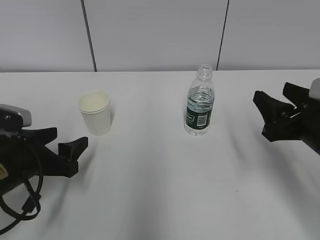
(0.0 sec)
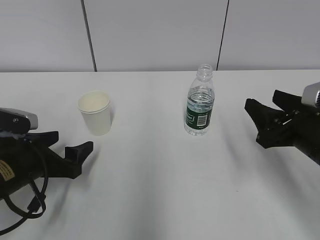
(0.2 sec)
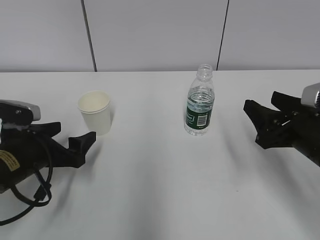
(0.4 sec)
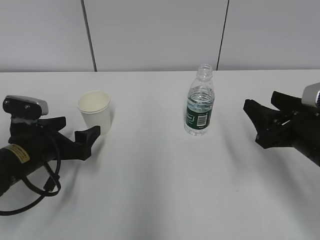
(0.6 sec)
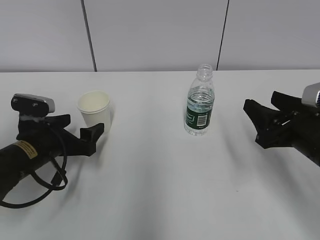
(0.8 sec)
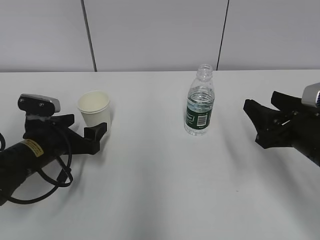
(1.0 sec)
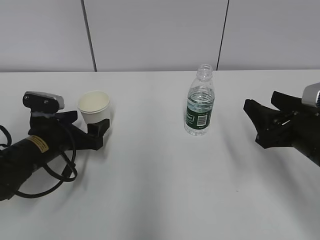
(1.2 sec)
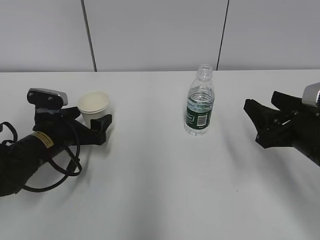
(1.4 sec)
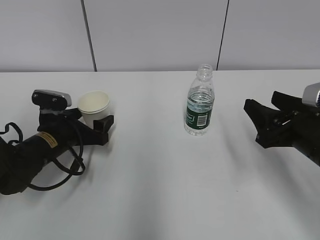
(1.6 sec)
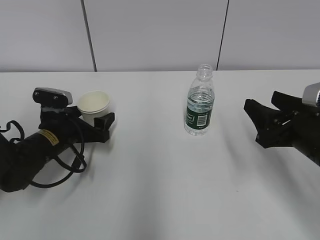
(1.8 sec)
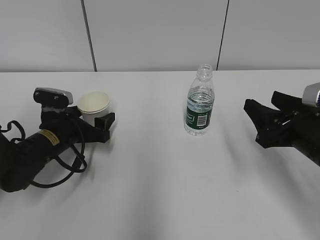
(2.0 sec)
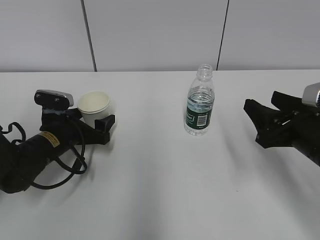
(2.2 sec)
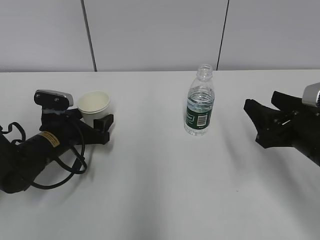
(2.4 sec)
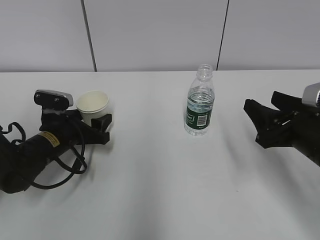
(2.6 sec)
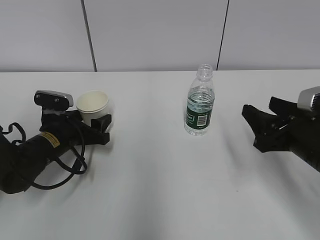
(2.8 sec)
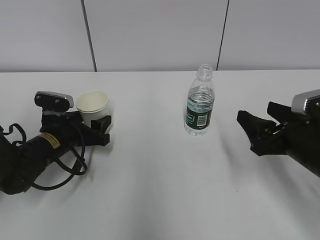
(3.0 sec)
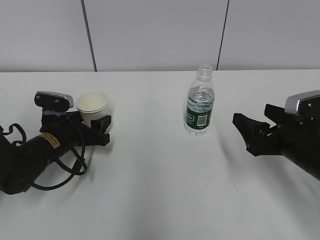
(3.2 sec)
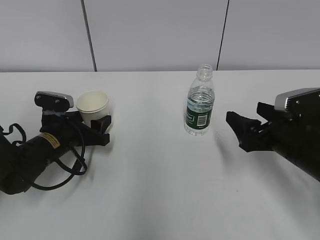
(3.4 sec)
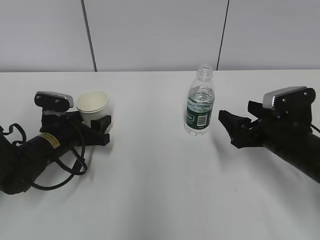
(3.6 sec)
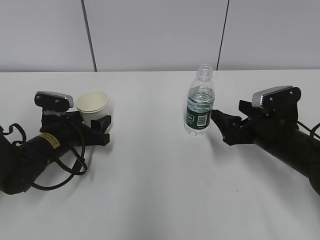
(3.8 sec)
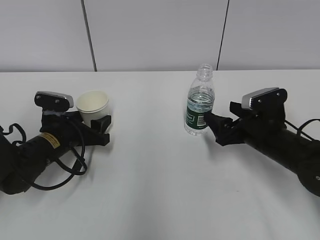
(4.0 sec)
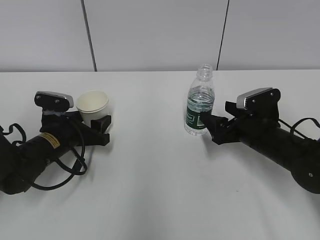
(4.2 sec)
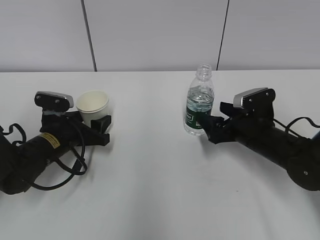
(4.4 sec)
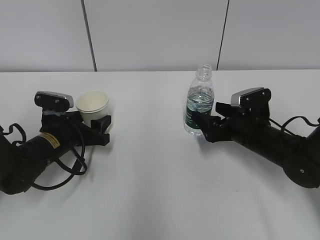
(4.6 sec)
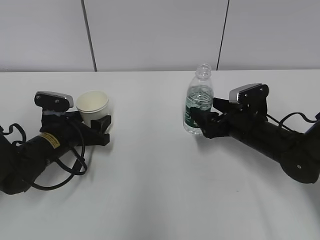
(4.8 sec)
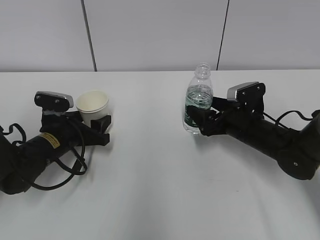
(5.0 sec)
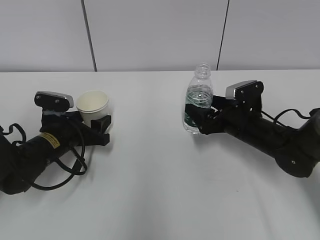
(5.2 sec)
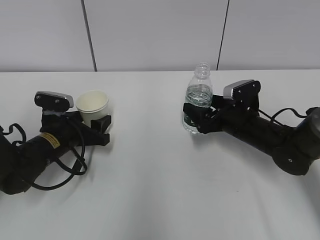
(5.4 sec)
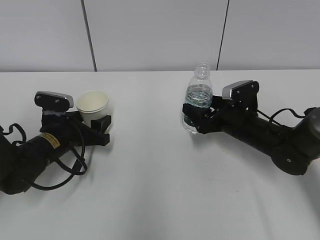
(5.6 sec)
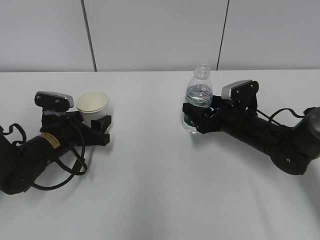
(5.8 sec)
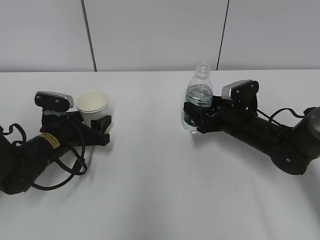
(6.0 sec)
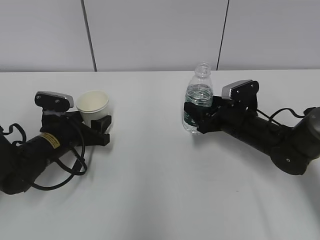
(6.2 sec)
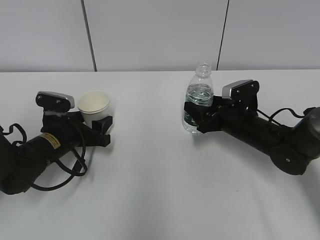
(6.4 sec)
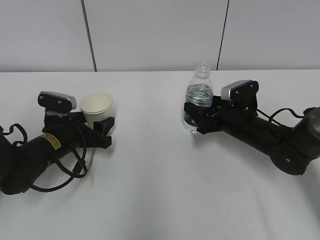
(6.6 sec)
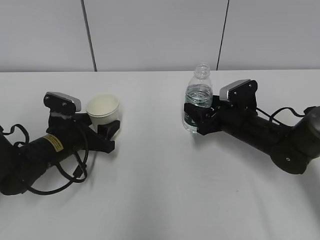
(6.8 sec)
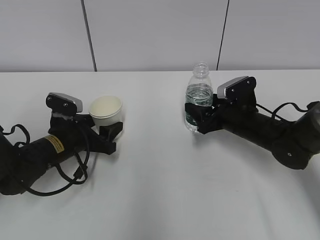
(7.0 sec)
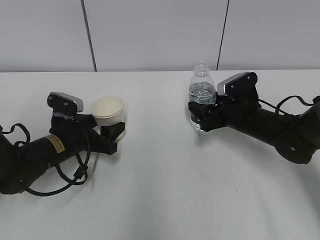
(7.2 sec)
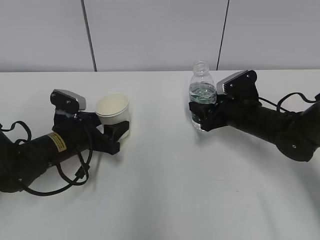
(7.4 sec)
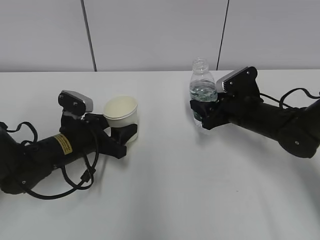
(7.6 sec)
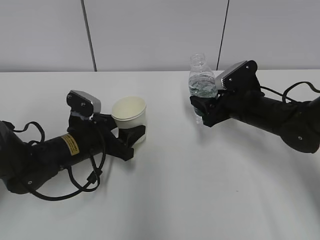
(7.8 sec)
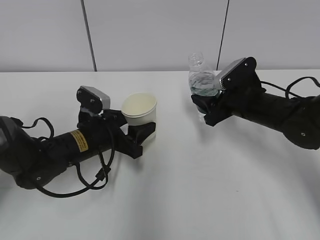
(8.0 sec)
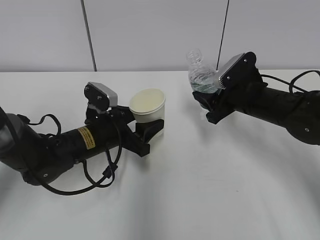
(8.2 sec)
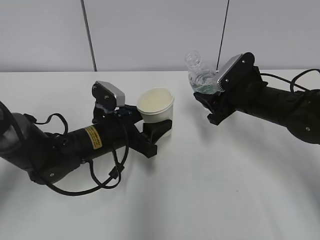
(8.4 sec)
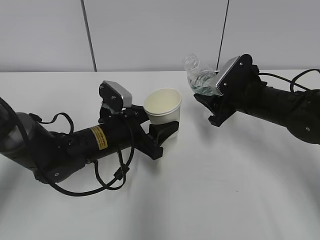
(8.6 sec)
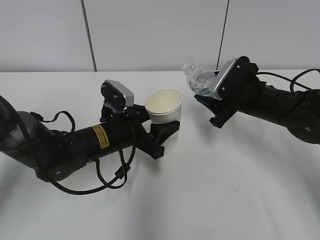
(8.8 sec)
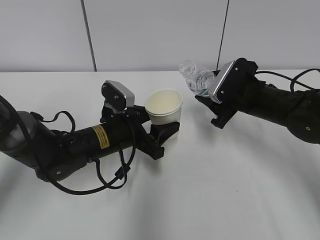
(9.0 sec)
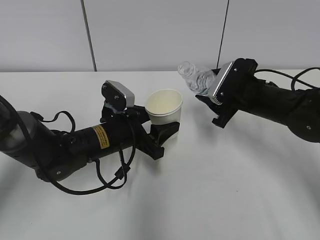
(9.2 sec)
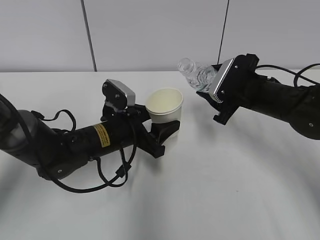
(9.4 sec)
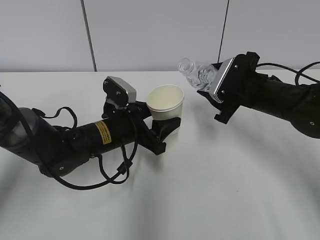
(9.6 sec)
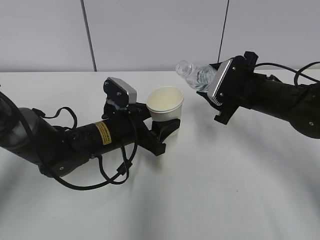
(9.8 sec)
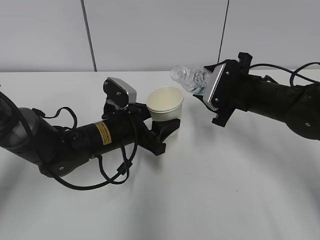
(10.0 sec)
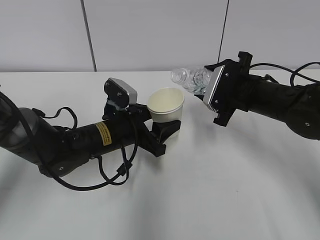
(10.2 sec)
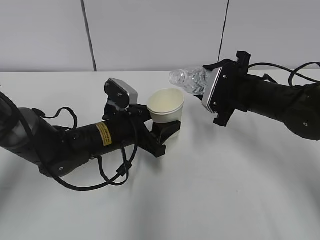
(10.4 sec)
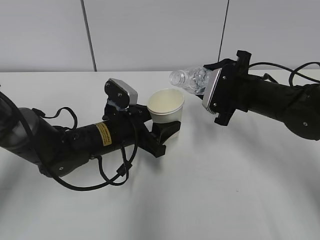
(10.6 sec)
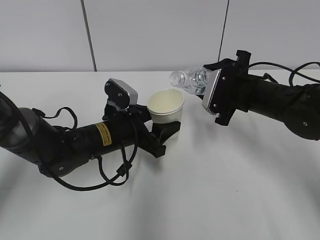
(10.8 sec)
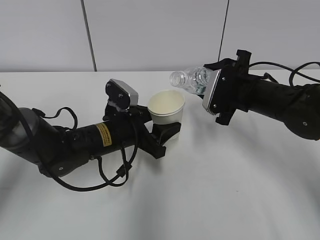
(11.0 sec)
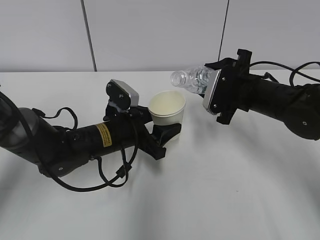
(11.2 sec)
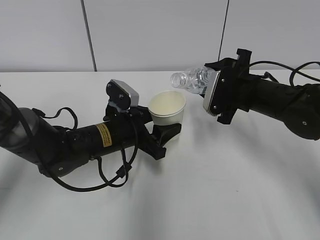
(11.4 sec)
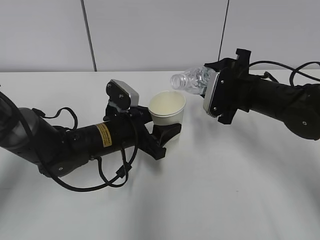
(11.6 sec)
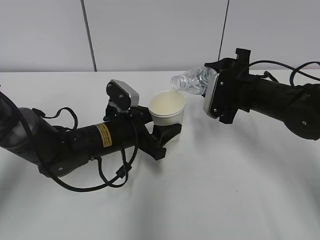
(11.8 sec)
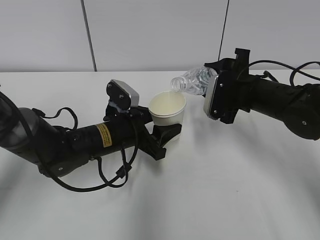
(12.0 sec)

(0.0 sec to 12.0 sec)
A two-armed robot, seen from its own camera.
Step, 0.0 sec - 3.8 sec: Grab the paper cup with the left hand.
Step, 4.0 sec - 4.2 sec: Grab the water bottle with the right hand.
Step, 4.4 sec - 9.2 sec: Lift the paper cup with the left hand.
0.0 sec - 1.6 sec: The left gripper travels forward by roughly 10 cm, and opens up.
1.6 sec - 3.0 sec: The left gripper closes up; the right gripper opens.
3.0 sec - 4.4 sec: The right gripper goes about 10 cm forward and downward, and opens its fingers.
4.4 sec - 6.0 sec: The right gripper closes.
6.0 sec - 7.6 sec: The grippers make only small movements.
7.6 sec - 9.0 sec: The left gripper heads to the right, covering about 5 cm.
9.0 sec - 10.4 sec: The grippers stay close to where they were, moving slightly.
10.4 sec - 12.0 sec: The grippers make only small movements.

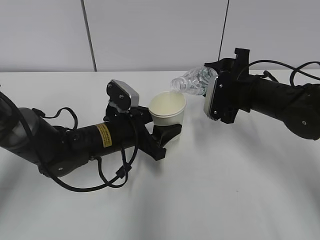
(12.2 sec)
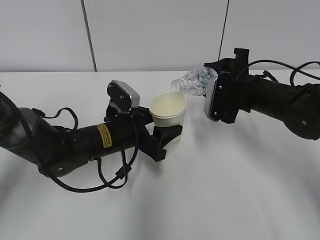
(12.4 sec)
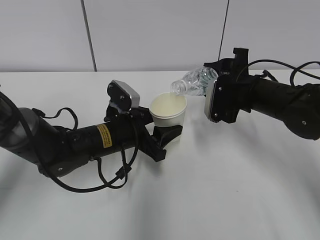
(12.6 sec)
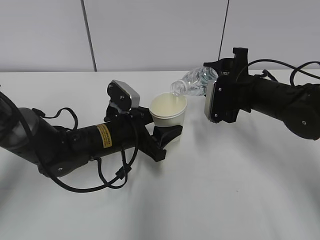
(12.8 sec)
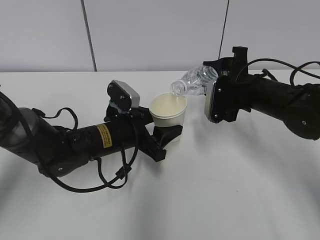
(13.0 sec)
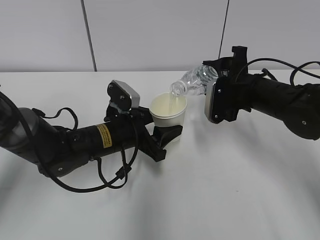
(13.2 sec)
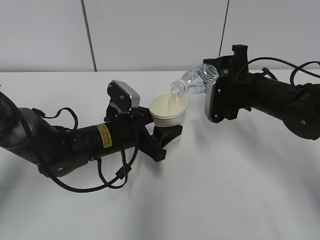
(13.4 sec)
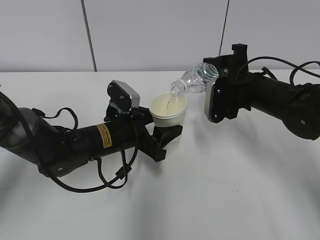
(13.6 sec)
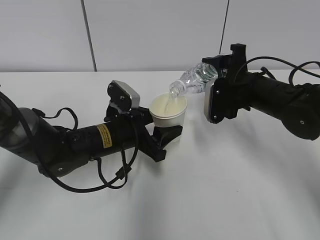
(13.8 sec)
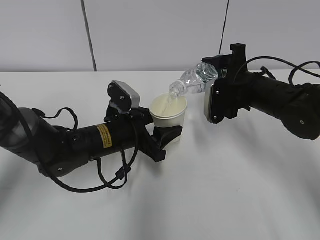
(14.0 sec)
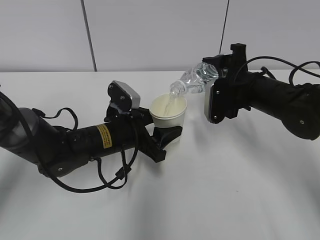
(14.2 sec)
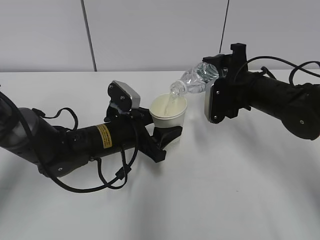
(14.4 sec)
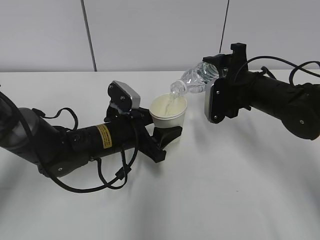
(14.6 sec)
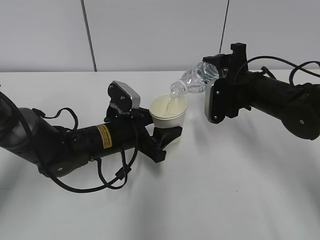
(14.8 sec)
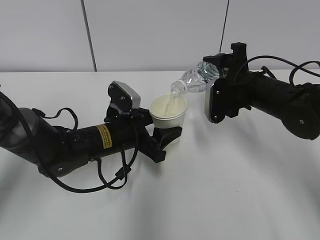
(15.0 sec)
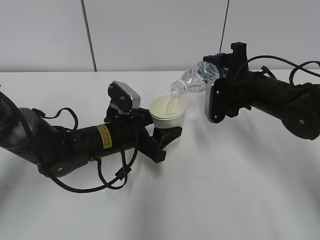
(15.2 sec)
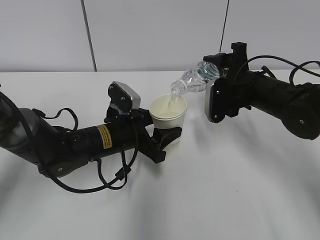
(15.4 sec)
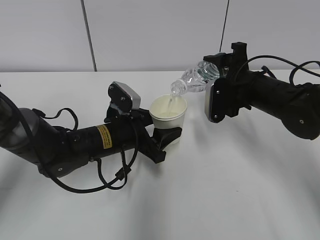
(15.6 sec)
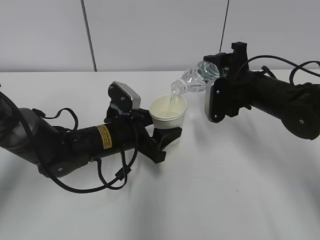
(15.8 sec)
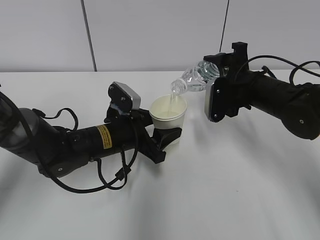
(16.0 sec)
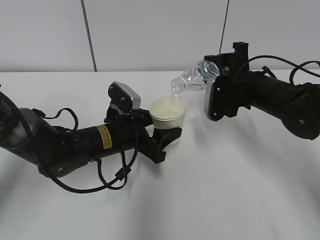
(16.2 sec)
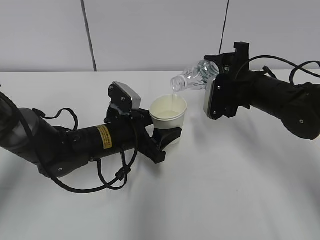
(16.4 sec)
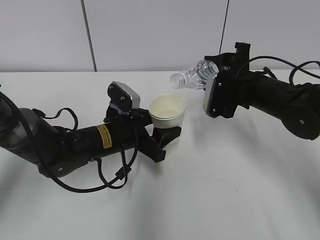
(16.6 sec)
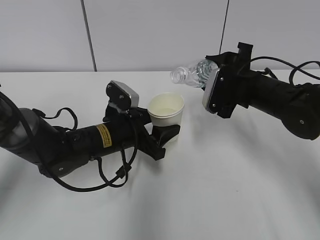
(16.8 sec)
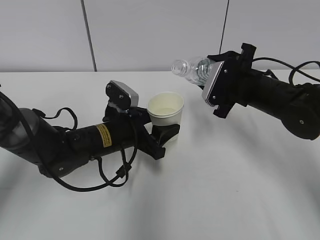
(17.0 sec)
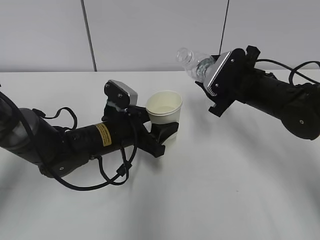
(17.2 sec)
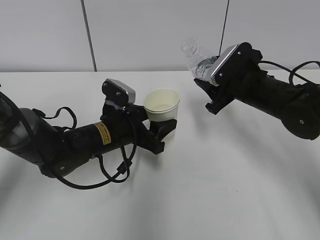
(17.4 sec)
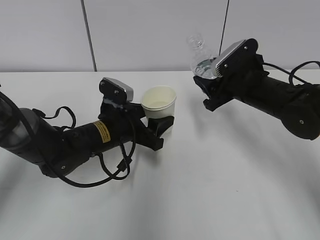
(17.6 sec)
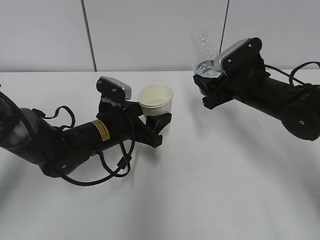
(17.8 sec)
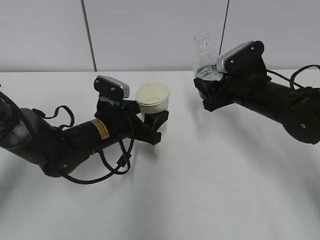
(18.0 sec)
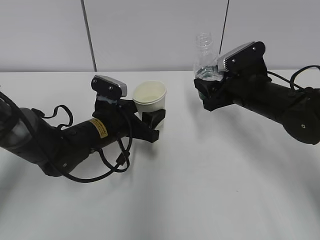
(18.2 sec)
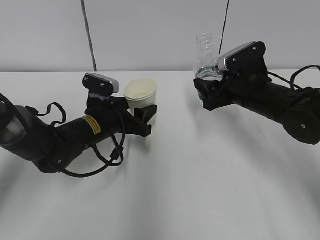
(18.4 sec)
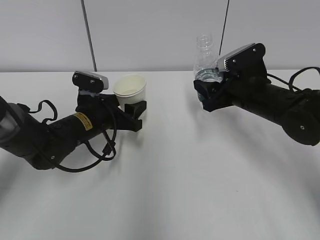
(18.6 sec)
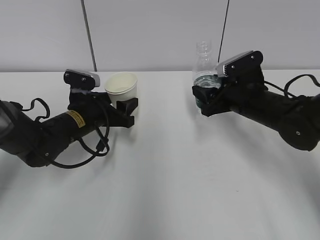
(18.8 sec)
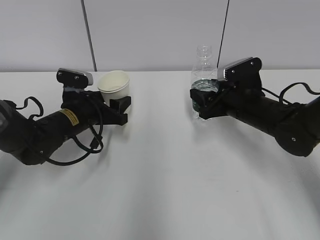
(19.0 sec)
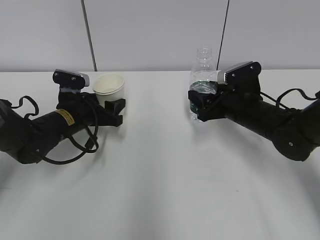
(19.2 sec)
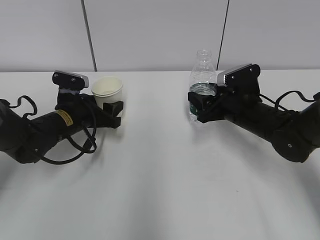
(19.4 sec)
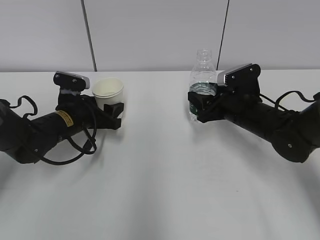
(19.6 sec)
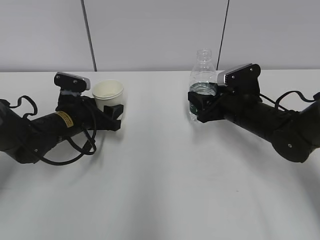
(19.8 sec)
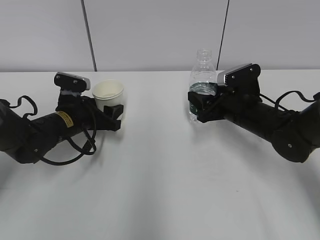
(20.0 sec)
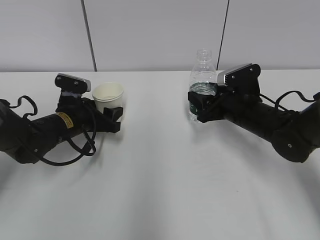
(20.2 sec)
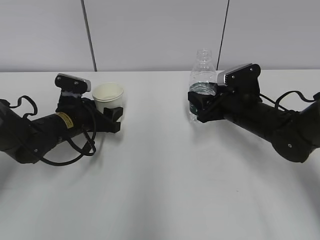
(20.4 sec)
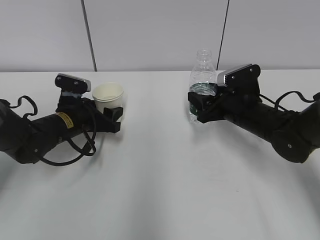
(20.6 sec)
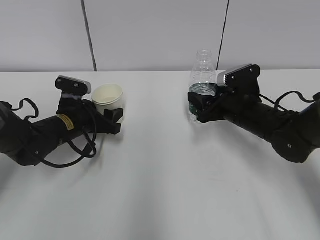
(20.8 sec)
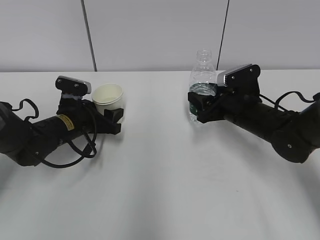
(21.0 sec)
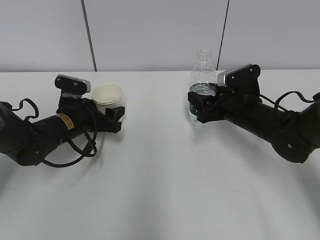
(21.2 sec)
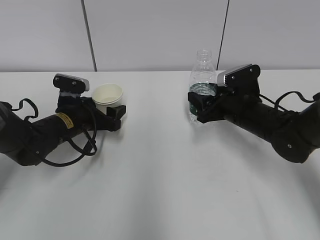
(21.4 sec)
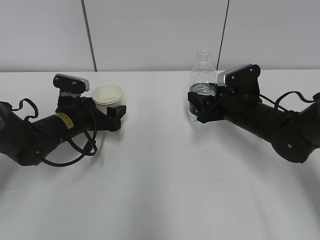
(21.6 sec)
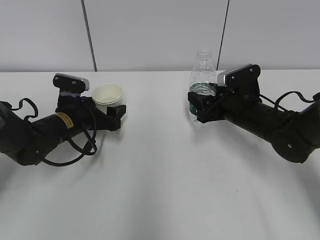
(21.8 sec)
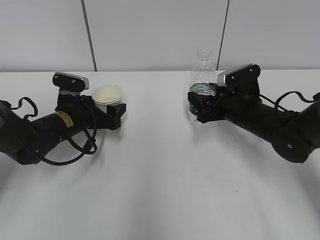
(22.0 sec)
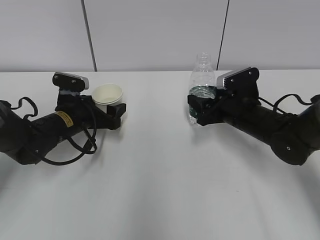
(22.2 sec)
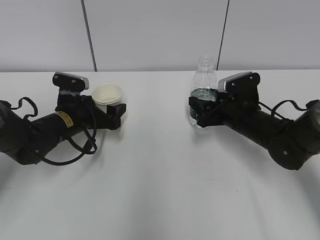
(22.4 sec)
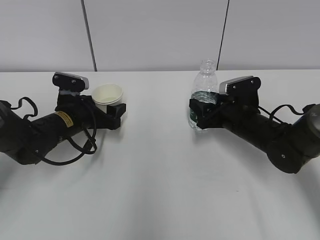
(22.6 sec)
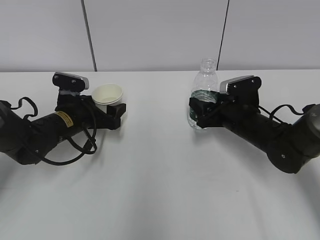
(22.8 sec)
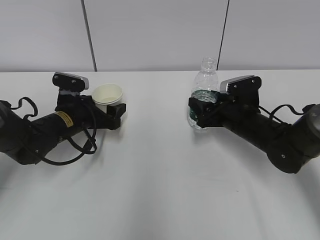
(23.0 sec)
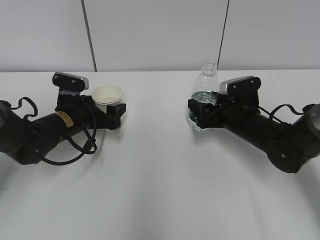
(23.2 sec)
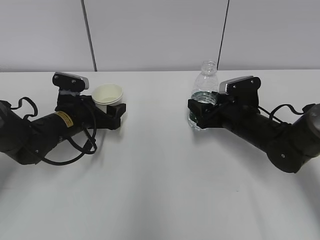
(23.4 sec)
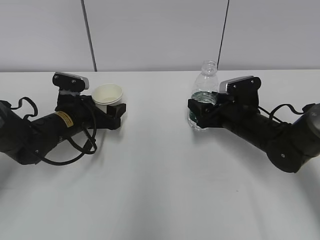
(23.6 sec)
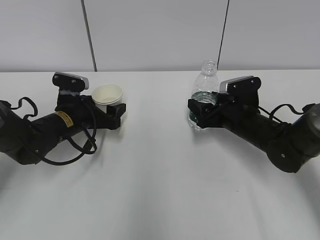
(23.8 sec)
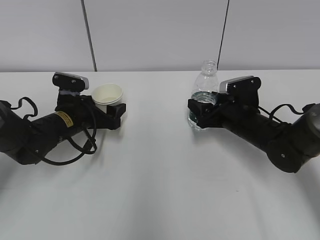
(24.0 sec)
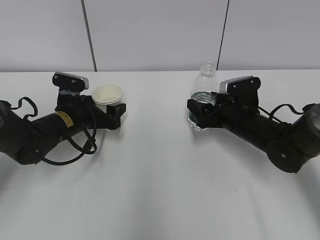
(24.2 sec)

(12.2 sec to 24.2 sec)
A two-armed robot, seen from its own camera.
Step, 13.0 sec - 14.2 sec: Collect water with the right hand.
Step, 14.4 sec - 16.6 sec: Place the paper cup with the left hand.
Step, 16.8 sec - 19.6 sec: Place the water bottle with the right hand.
12.2 sec - 13.8 sec: The grippers make only small movements.
13.8 sec - 15.2 sec: Both grippers stay put.
15.2 sec - 16.6 sec: There are only small adjustments of the grippers.
18.2 sec - 19.8 sec: The left gripper shifts some 10 cm to the left.
19.8 sec - 21.2 sec: Both grippers stay about where they are.
21.2 sec - 22.6 sec: The left gripper opens.
